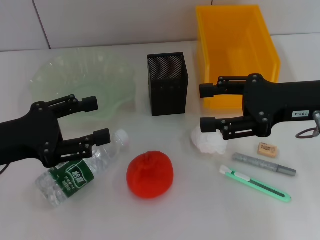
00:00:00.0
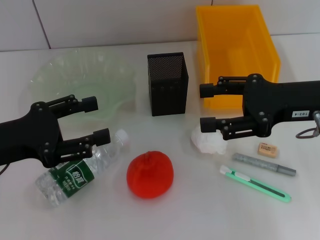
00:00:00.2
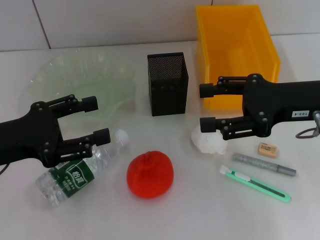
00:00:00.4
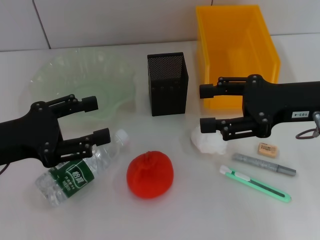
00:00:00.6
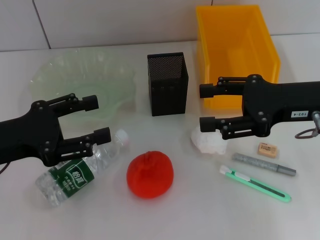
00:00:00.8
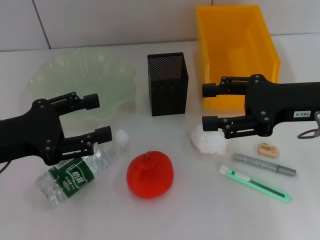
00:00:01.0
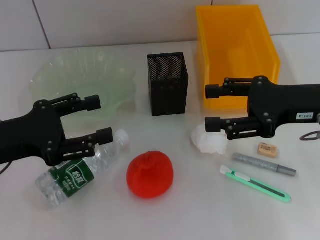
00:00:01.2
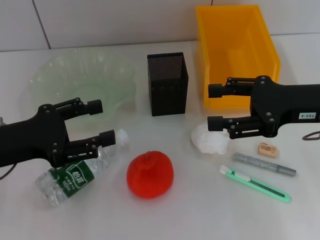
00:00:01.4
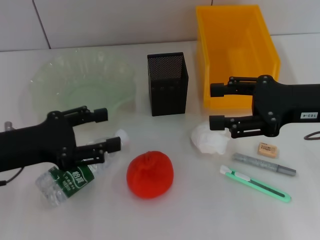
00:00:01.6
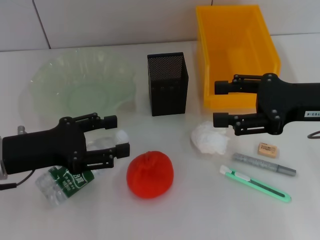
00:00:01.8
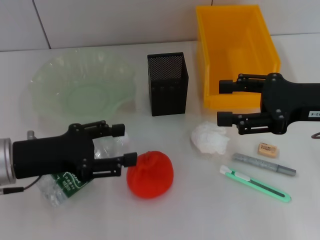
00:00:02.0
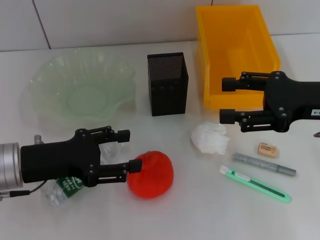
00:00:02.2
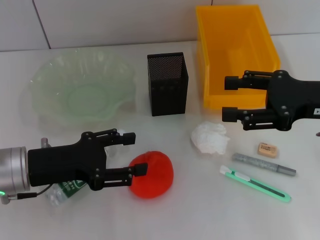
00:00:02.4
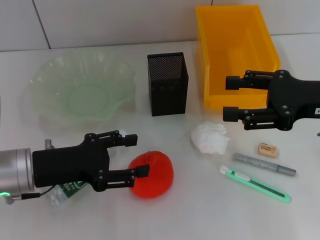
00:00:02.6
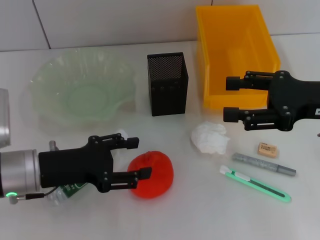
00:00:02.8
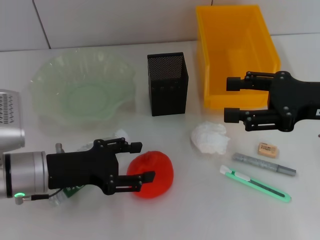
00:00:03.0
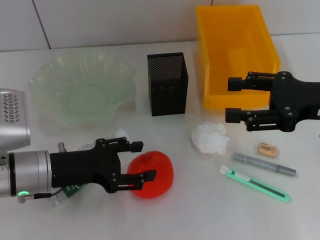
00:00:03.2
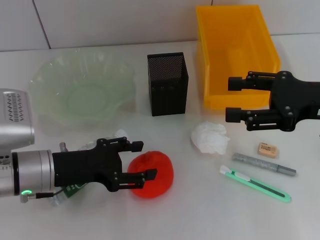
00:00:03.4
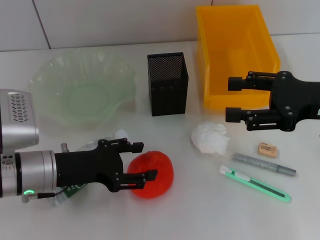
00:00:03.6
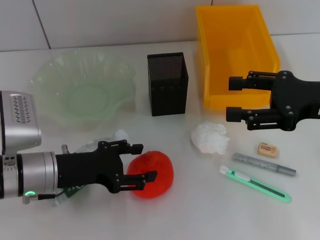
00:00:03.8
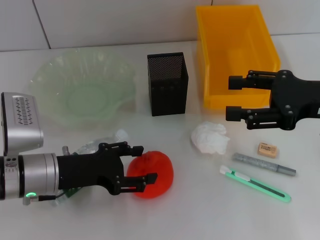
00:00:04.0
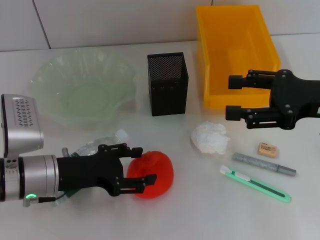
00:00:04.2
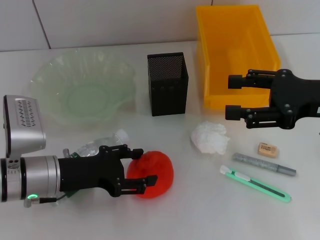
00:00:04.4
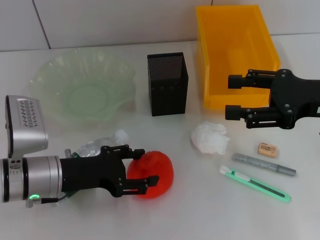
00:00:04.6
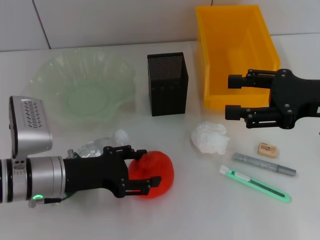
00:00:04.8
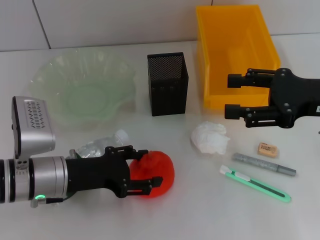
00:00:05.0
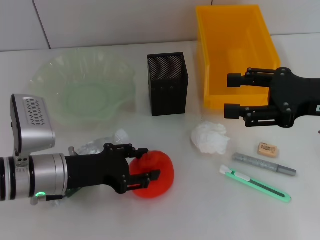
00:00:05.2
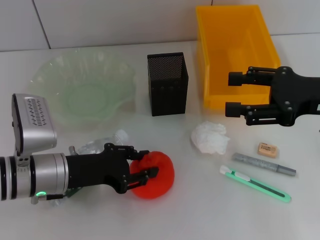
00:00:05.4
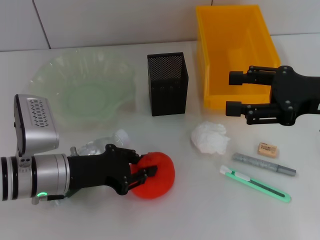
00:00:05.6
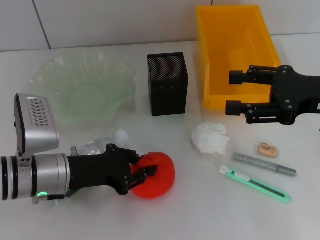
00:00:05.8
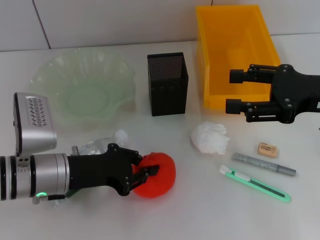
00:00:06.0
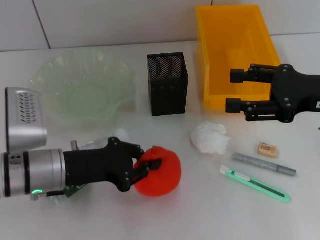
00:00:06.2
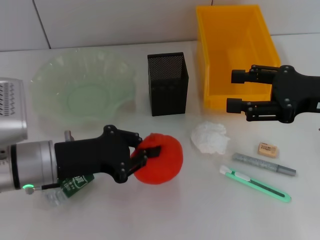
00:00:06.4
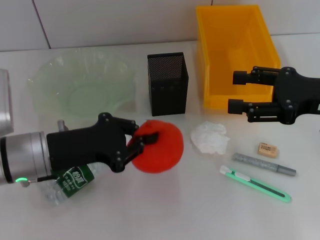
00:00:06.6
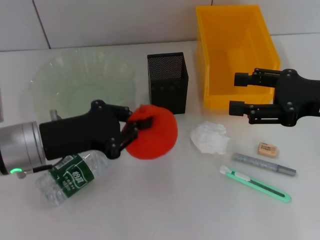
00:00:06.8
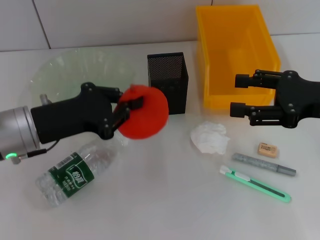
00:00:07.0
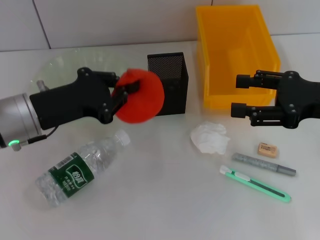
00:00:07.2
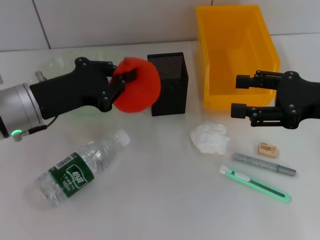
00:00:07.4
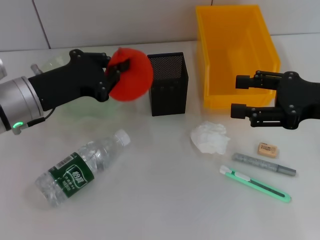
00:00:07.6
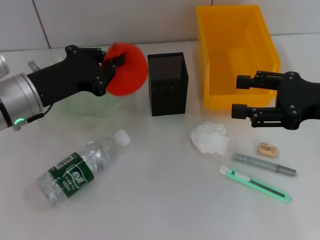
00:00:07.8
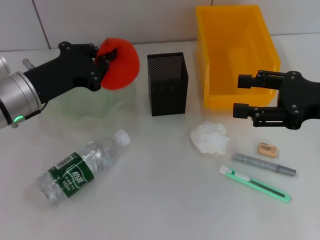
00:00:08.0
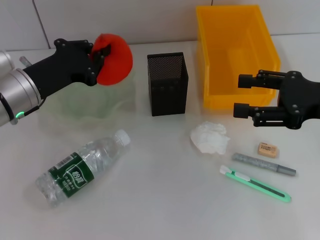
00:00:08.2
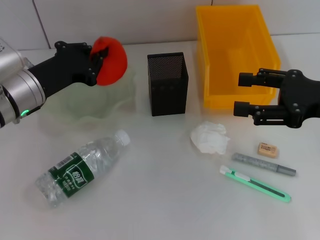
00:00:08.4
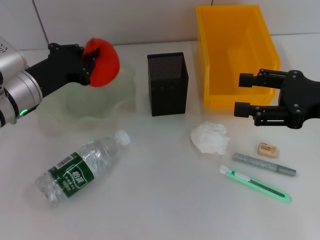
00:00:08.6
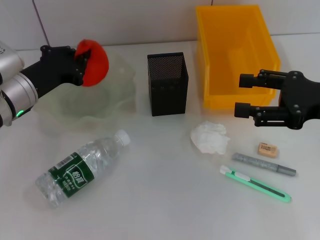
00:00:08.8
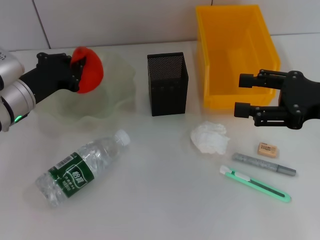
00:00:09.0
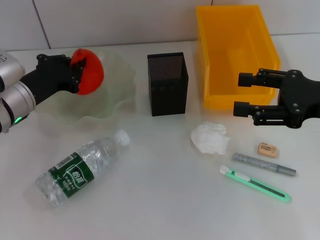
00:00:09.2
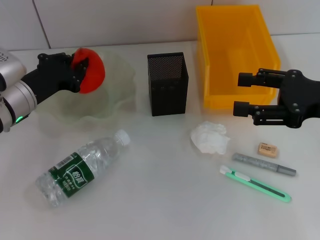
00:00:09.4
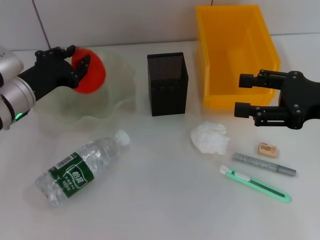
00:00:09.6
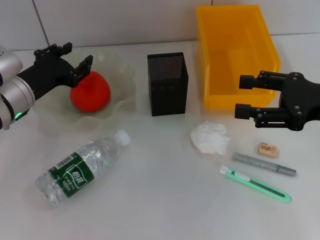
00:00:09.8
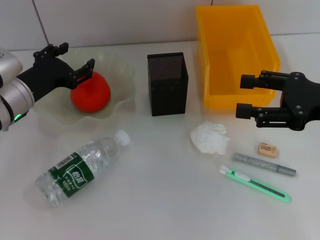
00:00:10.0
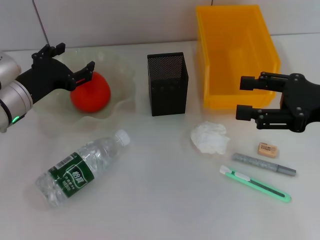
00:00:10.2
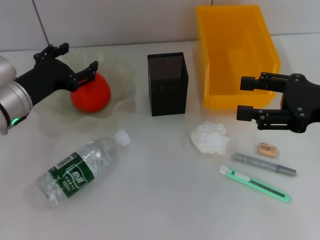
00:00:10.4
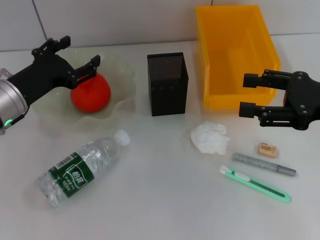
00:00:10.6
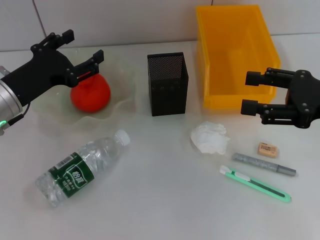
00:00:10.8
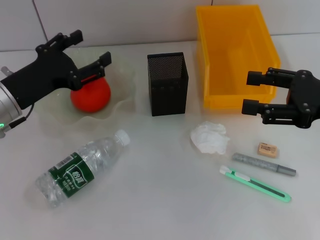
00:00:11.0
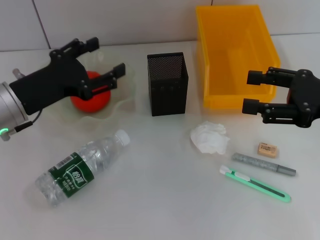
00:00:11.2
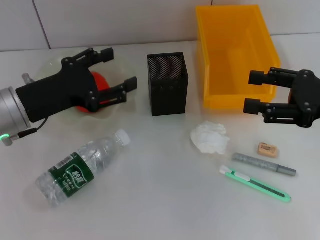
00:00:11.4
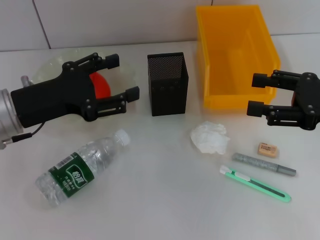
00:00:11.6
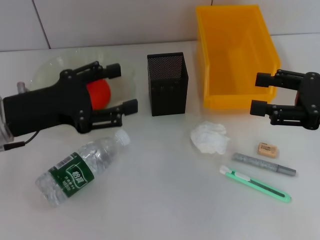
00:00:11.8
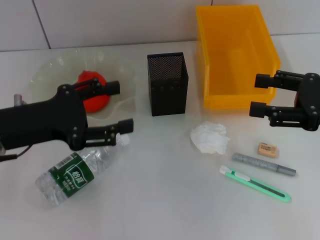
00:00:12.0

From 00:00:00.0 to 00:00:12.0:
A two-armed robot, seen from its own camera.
Step, from 00:00:00.0 to 00:00:05.8: Grab the orange with the left hand.
Step, from 00:00:06.0 to 00:00:09.6: Place the orange into the fruit bowl with the left hand.
From 00:00:00.0 to 00:00:01.6: Neither gripper changes place.
From 00:00:01.6 to 00:00:03.0: The left gripper travels downward and to the right by approximately 10 cm.
From 00:00:03.0 to 00:00:04.4: There are only small adjustments of the grippers.
From 00:00:04.4 to 00:00:06.0: The left gripper closes up.
From 00:00:06.0 to 00:00:07.6: The left gripper travels upward by about 5 cm.
From 00:00:07.6 to 00:00:09.0: The left gripper shifts by roughly 5 cm.
From 00:00:09.0 to 00:00:10.4: The left gripper opens.
From 00:00:10.4 to 00:00:12.0: The left gripper goes roughly 10 cm backward and upward.

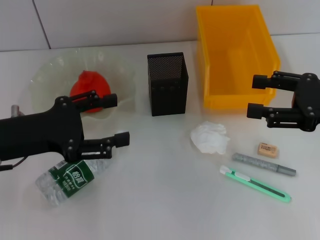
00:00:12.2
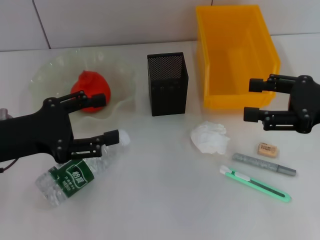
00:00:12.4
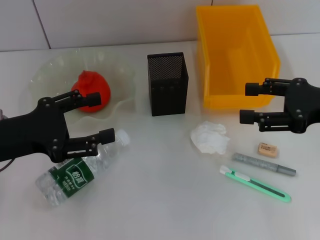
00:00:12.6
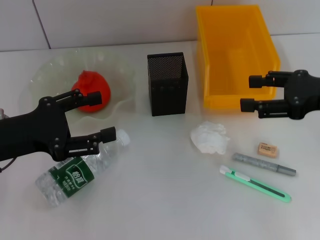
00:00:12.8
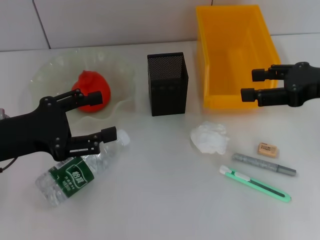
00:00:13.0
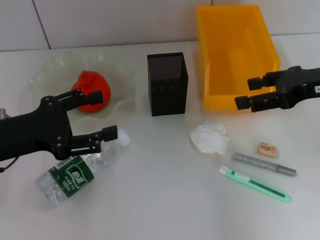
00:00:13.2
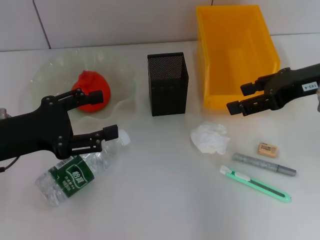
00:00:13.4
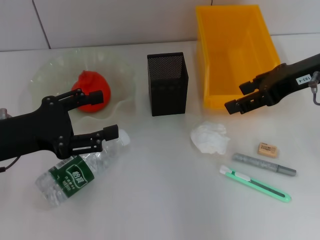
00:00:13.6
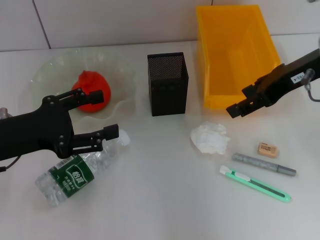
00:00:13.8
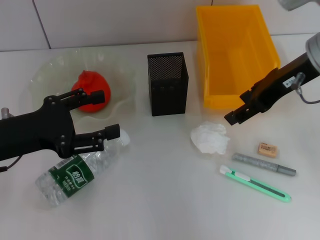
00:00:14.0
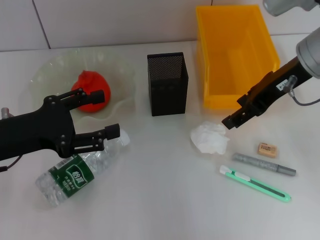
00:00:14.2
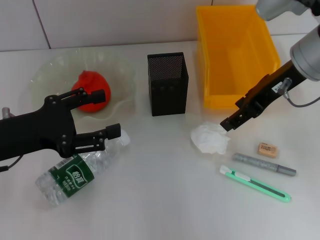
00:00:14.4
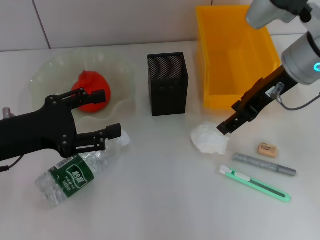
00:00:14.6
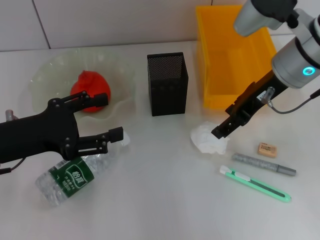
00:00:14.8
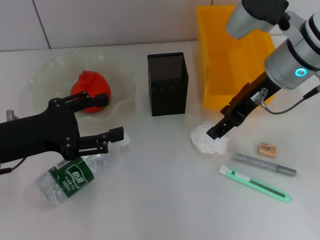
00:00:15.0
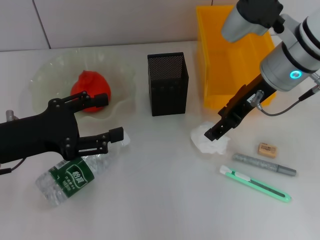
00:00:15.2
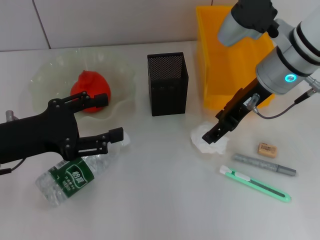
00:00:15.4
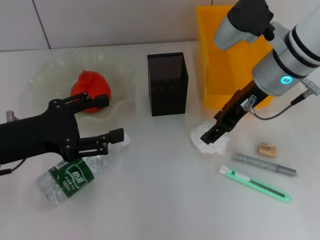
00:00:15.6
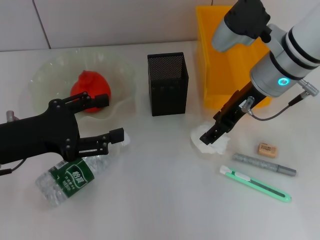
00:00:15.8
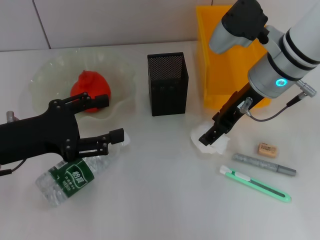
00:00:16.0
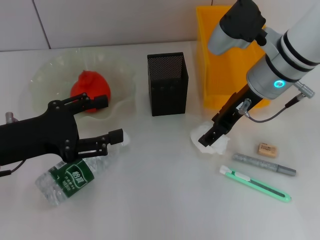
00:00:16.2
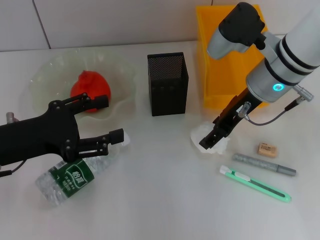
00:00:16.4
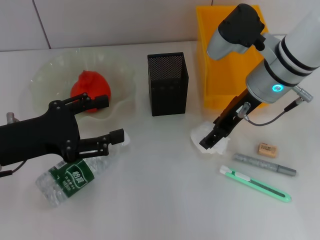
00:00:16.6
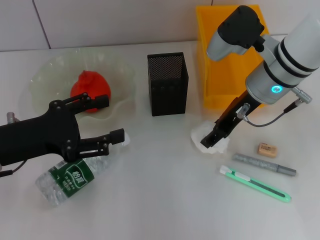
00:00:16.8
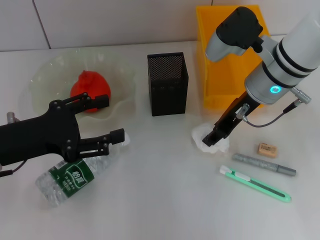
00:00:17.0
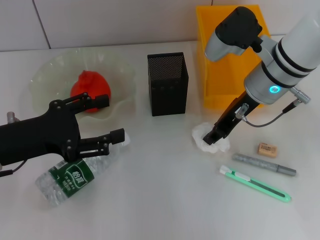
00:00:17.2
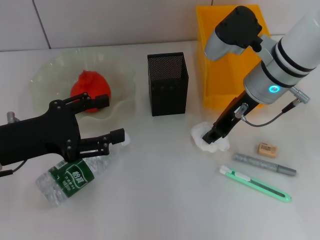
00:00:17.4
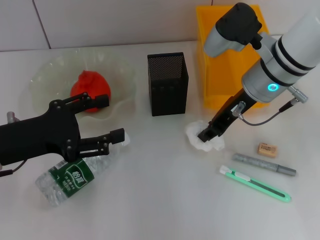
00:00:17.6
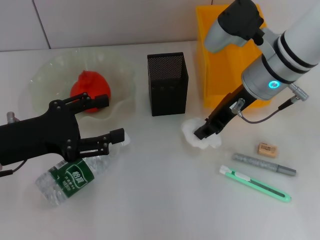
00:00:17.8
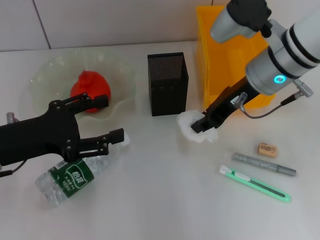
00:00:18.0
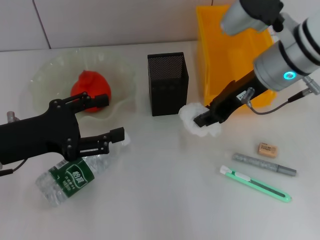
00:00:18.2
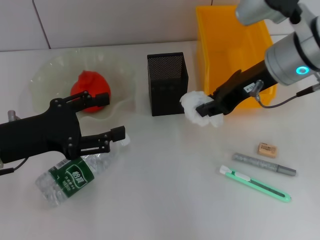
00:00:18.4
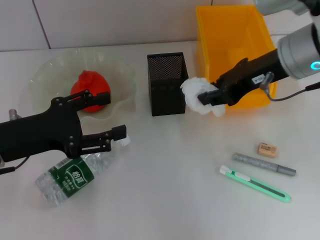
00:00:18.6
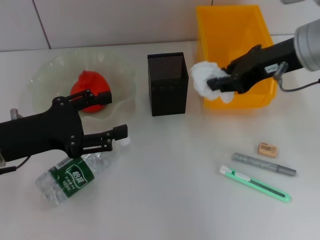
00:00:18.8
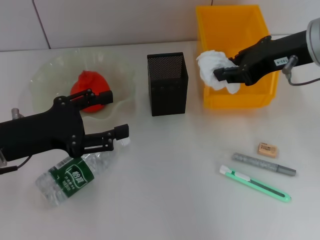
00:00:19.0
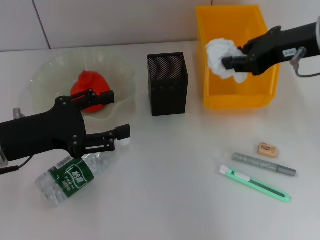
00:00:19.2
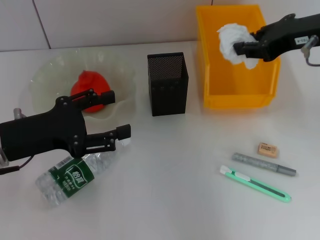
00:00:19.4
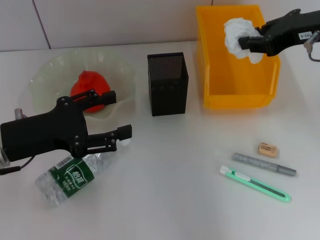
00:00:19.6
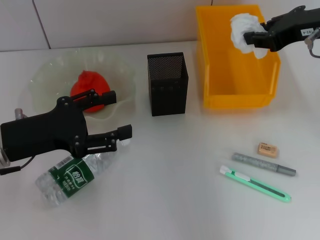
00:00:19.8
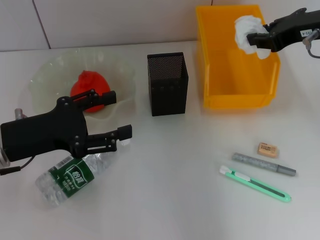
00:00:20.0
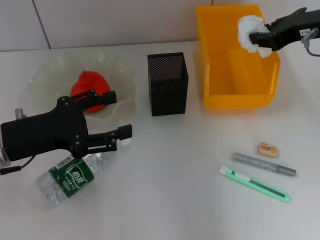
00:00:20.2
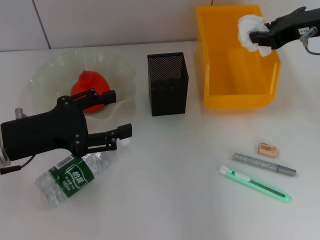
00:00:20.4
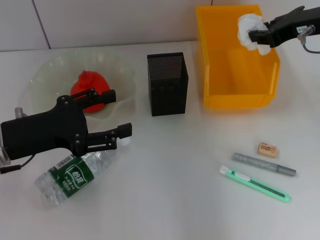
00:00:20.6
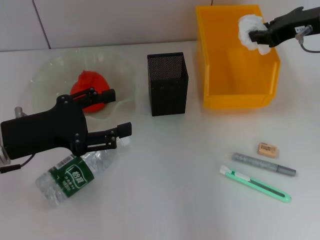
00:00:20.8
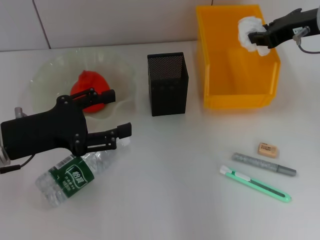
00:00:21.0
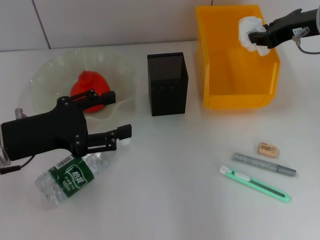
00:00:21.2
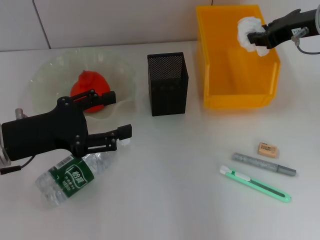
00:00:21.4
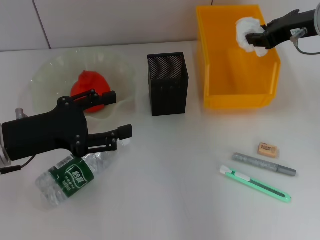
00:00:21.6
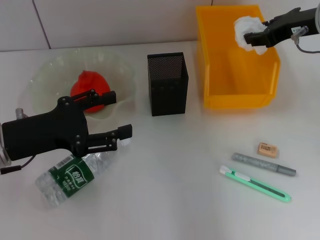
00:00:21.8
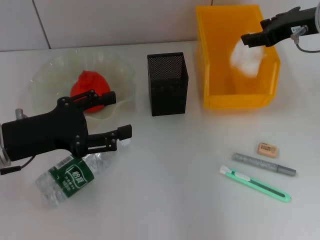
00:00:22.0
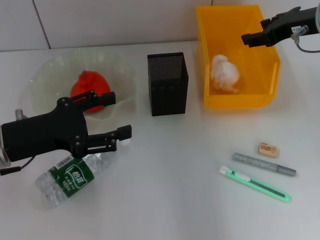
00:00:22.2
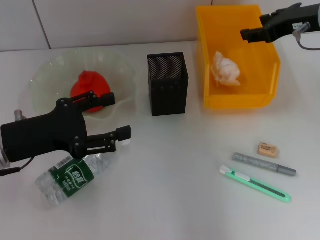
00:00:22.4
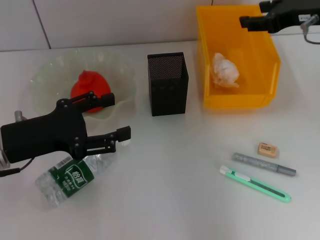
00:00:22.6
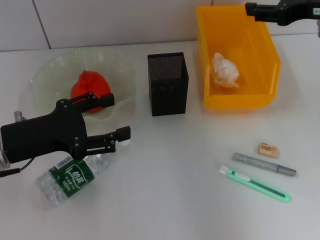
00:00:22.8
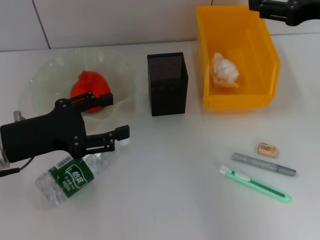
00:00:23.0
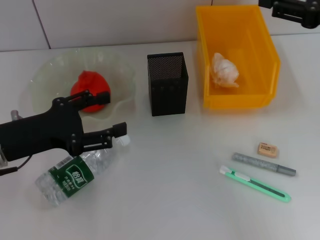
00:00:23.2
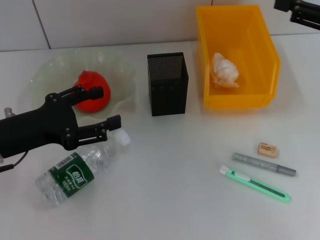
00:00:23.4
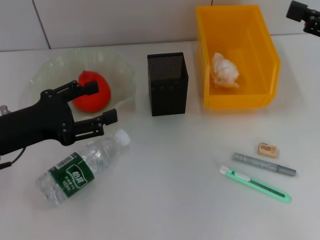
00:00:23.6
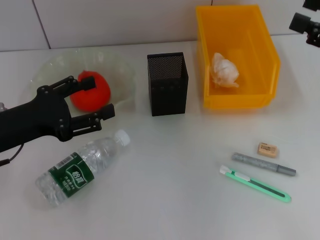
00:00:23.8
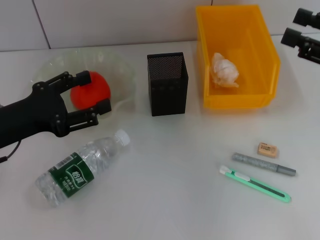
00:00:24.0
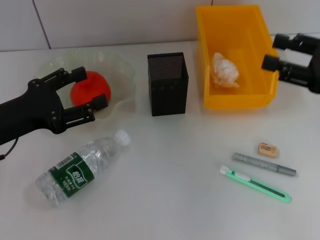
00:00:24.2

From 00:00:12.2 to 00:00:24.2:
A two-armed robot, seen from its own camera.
Step, from 00:00:12.2 to 00:00:17.2: Grab the paper ball with the right hand.
Step, from 00:00:17.4 to 00:00:22.0: Place the paper ball into the trash can with the right hand.
From 00:00:12.2 to 00:00:13.8: The right gripper heads forward, to the left and upward, covering about 15 cm.
From 00:00:13.8 to 00:00:15.2: The right gripper moves to the left, some 5 cm.
From 00:00:15.2 to 00:00:16.6: There are only small adjustments of the grippers.
From 00:00:16.6 to 00:00:18.2: The right gripper closes its fingers.
From 00:00:18.2 to 00:00:19.8: The right gripper goes some 10 cm to the right.
From 00:00:19.8 to 00:00:21.2: The right gripper ends up about 5 cm from where it was.
From 00:00:21.2 to 00:00:22.6: The right gripper opens.
From 00:00:22.6 to 00:00:24.2: The right gripper shifts about 15 cm backward, downward and to the right.
